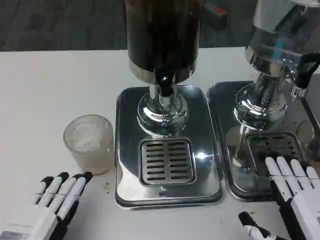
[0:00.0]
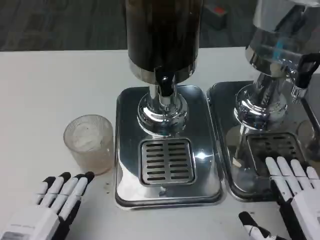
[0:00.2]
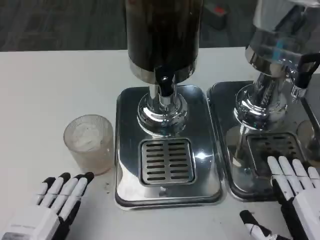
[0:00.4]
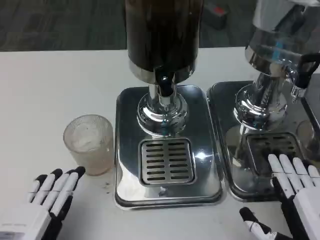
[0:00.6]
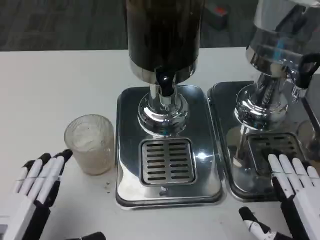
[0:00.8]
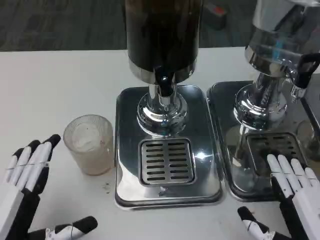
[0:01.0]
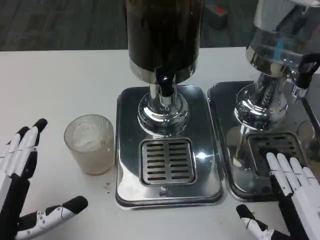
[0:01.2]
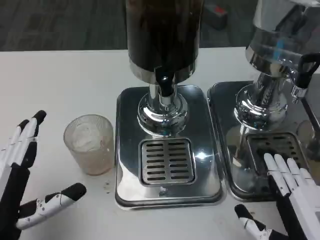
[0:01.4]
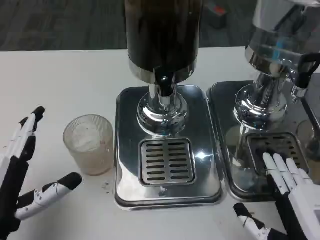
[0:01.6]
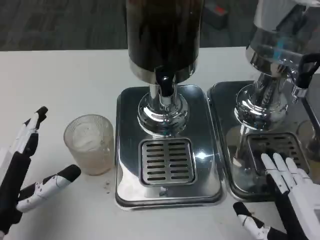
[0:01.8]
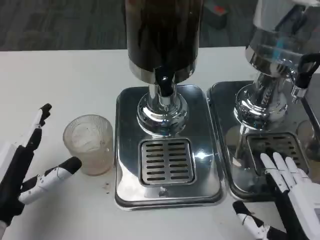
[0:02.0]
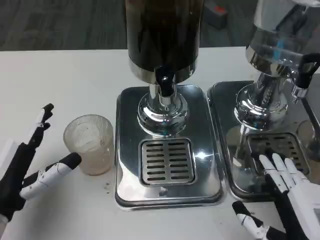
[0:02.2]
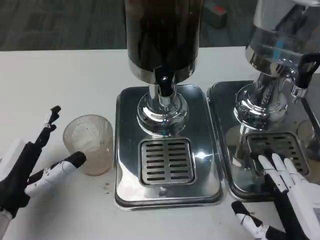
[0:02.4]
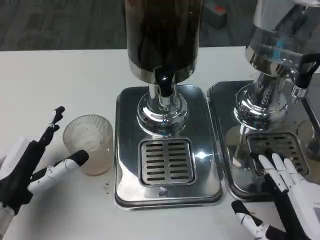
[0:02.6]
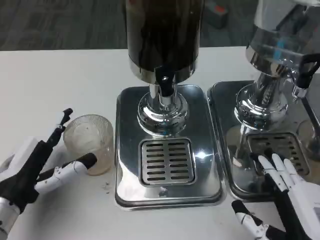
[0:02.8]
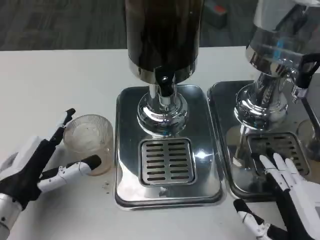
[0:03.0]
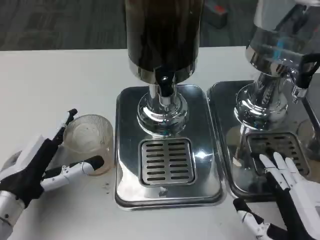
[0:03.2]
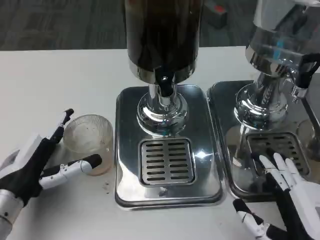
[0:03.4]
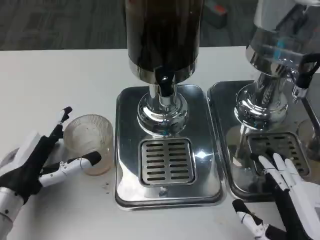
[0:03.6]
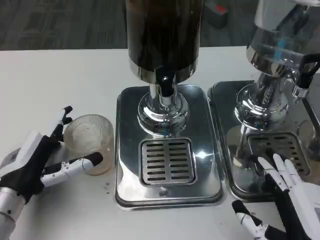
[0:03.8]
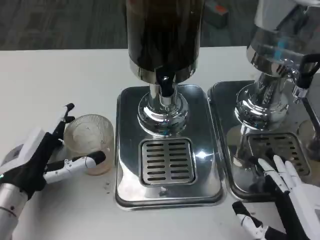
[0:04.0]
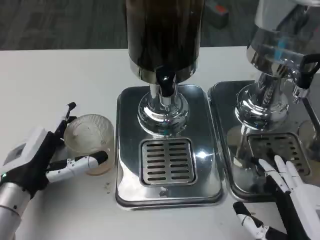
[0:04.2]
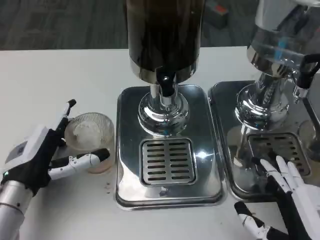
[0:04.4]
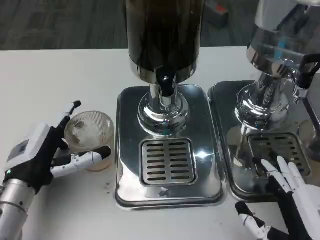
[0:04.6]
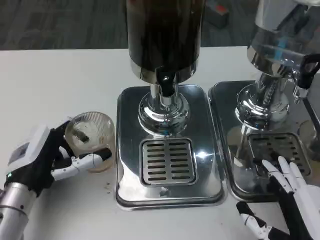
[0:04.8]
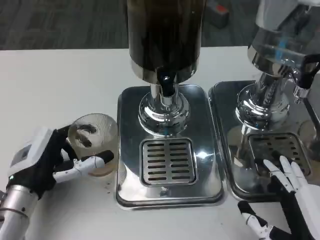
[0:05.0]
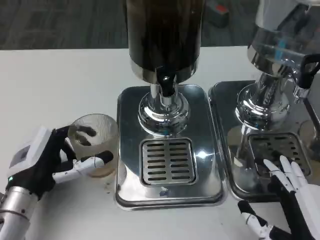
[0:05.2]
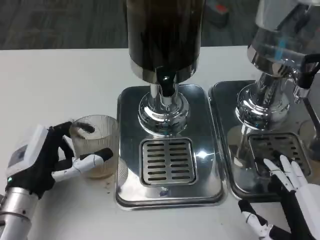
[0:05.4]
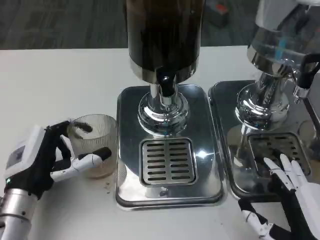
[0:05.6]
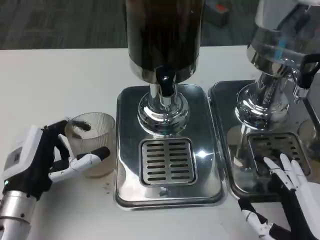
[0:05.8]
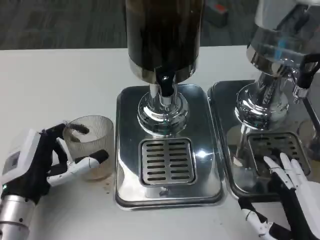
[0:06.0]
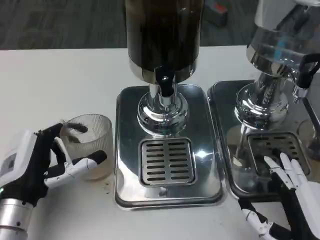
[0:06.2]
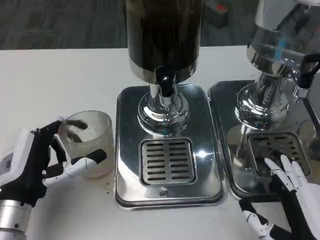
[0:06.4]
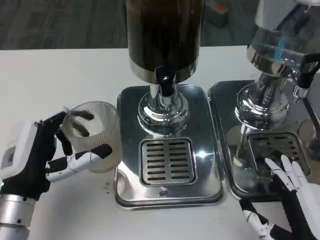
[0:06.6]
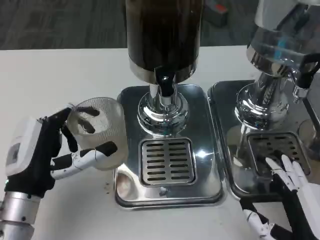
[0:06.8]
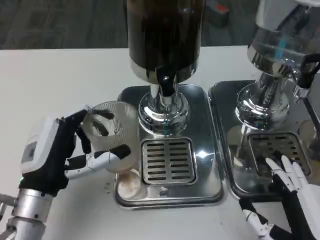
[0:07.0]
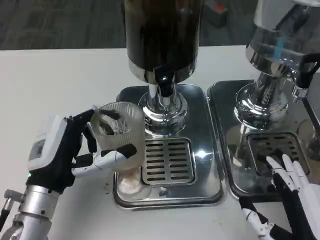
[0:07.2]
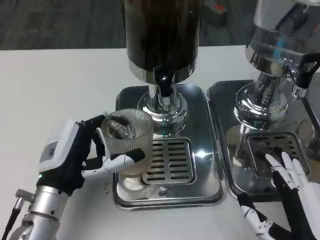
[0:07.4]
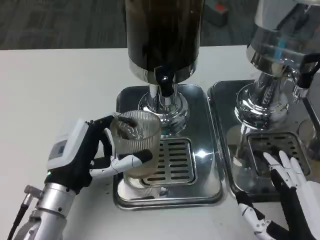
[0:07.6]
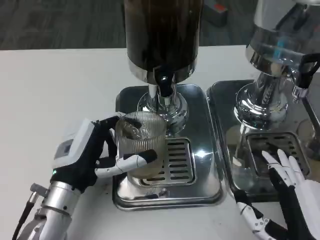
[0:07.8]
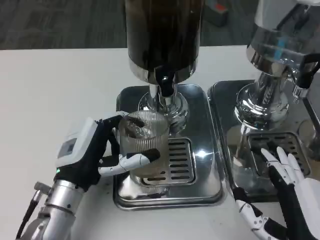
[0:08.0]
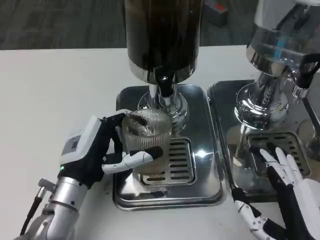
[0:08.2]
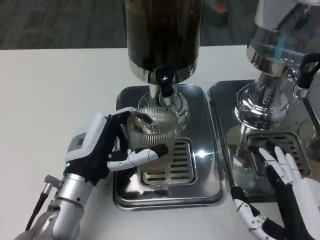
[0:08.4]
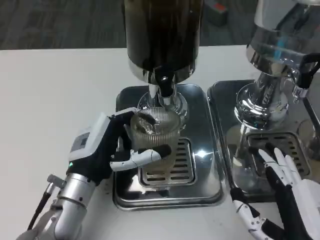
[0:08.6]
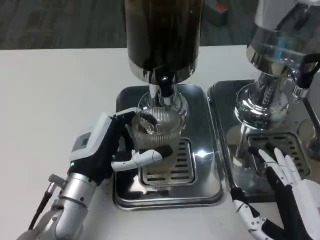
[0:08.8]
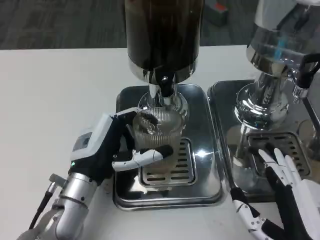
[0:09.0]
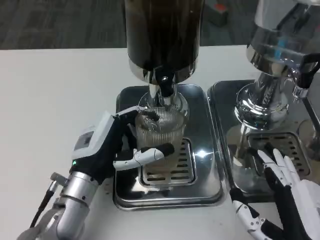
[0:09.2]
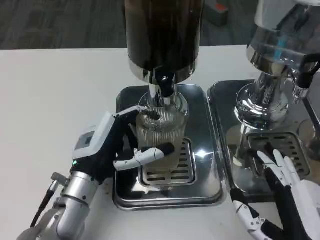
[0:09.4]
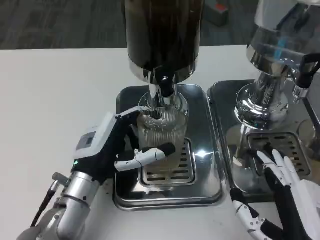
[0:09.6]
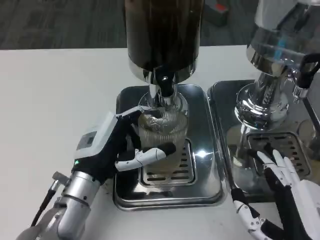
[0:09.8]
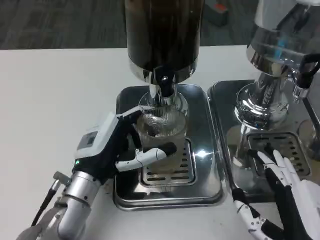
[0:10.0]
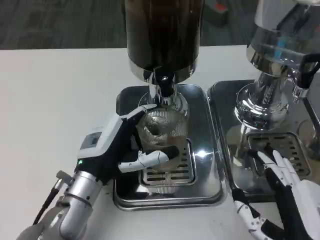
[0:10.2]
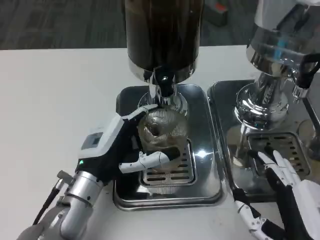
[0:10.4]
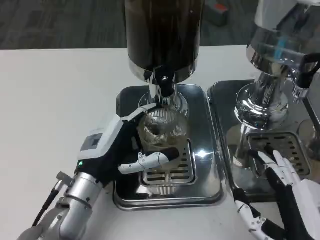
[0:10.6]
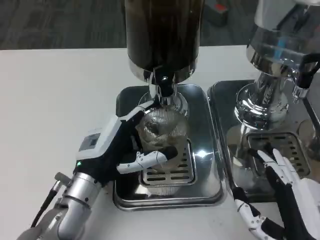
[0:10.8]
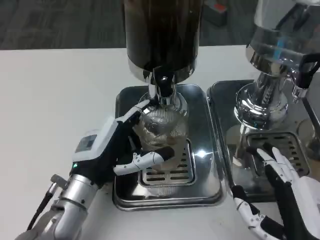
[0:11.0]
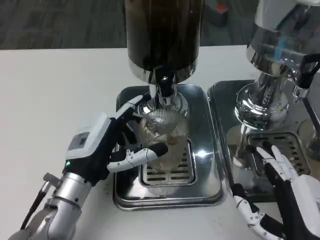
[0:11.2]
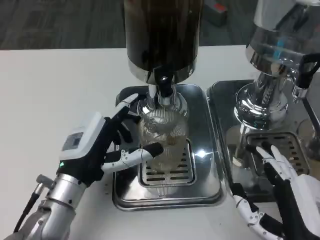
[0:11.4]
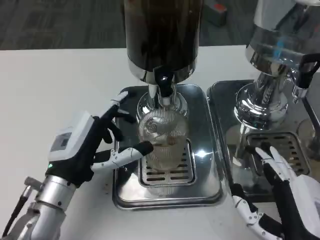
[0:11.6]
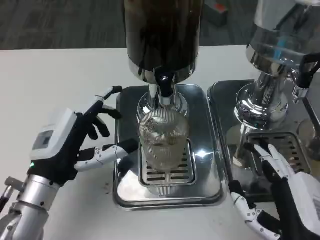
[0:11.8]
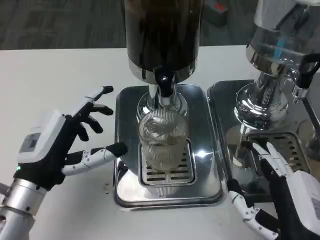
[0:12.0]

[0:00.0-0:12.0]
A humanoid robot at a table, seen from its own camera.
Task of the whole recording: Grasp the cup under the faucet to collect the drink, then remove the cup.
0:00.0 to 0:01.6: The left hand is displaced forward by about 5 cm.
0:01.6 to 0:03.0: The left hand heads forward, covering roughly 5 cm.
0:03.0 to 0:06.0: The hands stay close to where they were, moving slightly.
0:06.0 to 0:07.6: The left hand moves roughly 5 cm.
0:07.6 to 0:10.4: The hands stay close to where they were, moving slightly.
0:10.4 to 0:12.0: The left hand goes approximately 5 cm to the left.

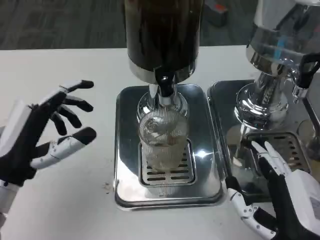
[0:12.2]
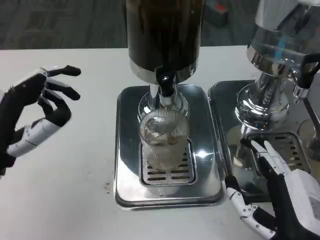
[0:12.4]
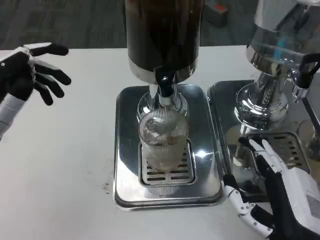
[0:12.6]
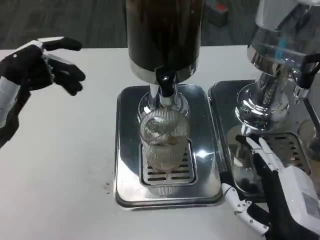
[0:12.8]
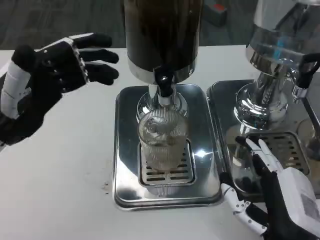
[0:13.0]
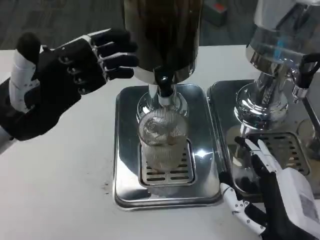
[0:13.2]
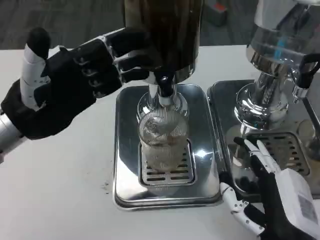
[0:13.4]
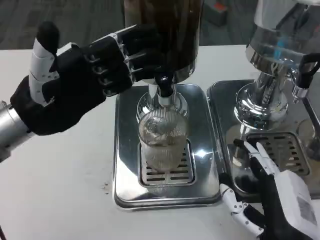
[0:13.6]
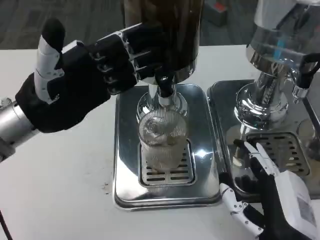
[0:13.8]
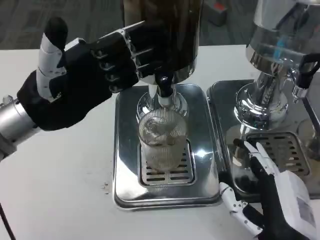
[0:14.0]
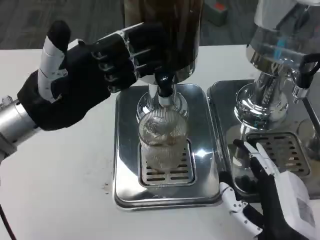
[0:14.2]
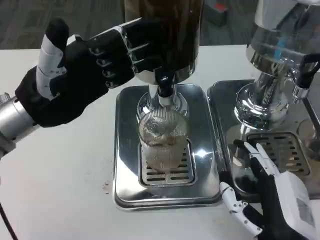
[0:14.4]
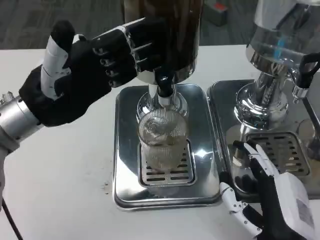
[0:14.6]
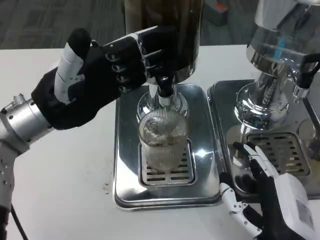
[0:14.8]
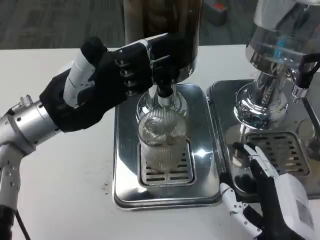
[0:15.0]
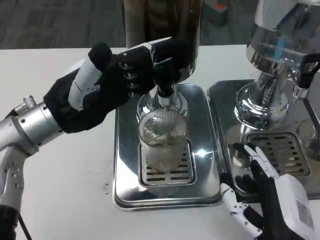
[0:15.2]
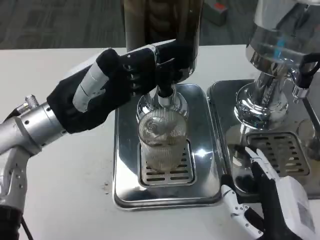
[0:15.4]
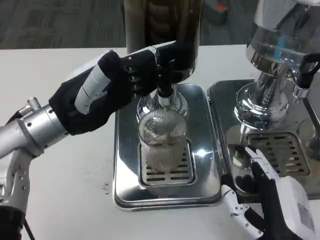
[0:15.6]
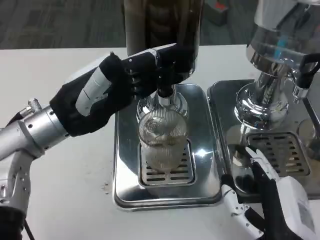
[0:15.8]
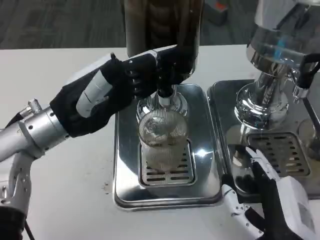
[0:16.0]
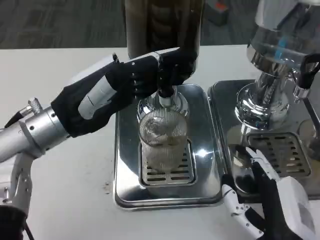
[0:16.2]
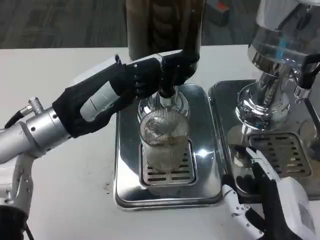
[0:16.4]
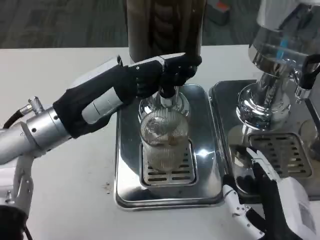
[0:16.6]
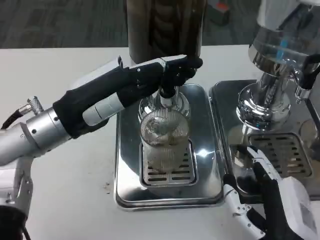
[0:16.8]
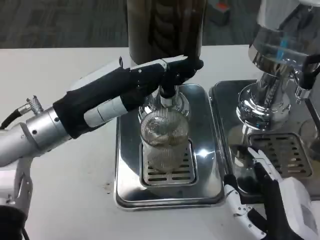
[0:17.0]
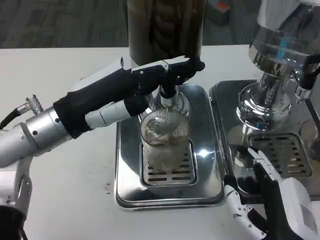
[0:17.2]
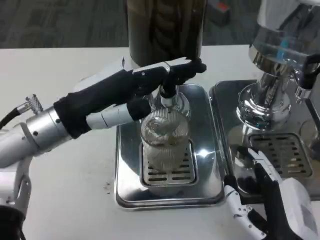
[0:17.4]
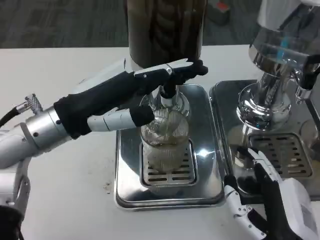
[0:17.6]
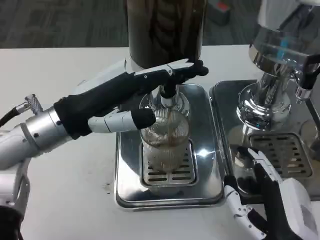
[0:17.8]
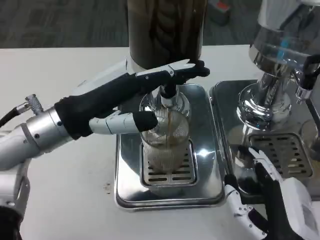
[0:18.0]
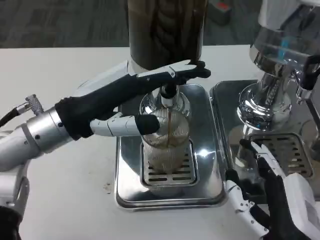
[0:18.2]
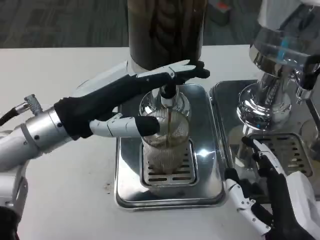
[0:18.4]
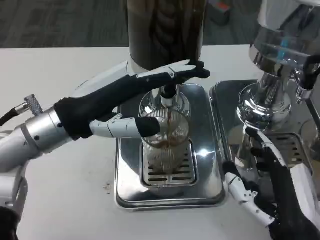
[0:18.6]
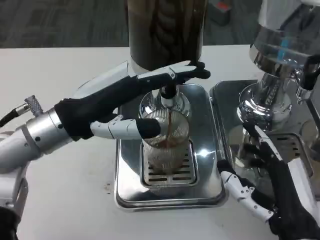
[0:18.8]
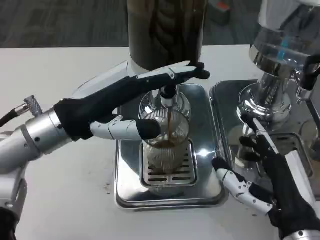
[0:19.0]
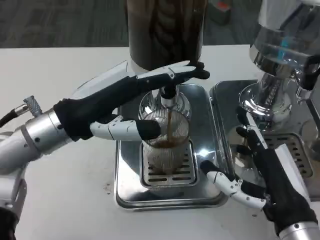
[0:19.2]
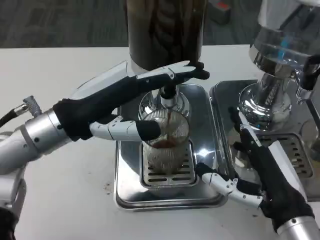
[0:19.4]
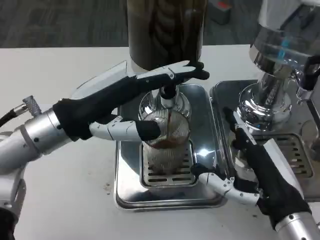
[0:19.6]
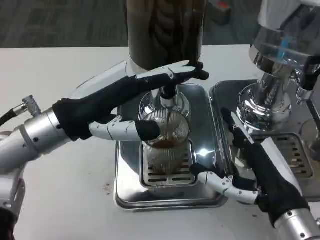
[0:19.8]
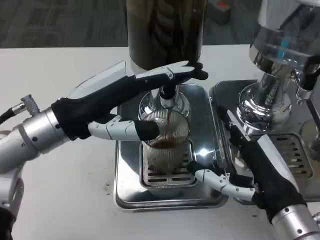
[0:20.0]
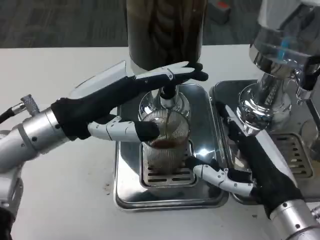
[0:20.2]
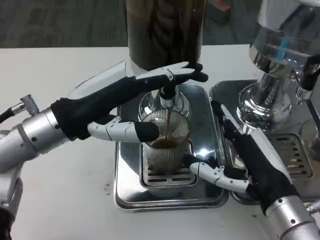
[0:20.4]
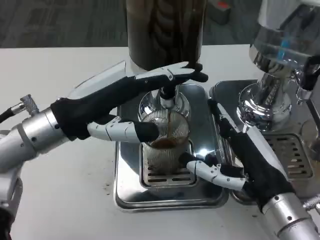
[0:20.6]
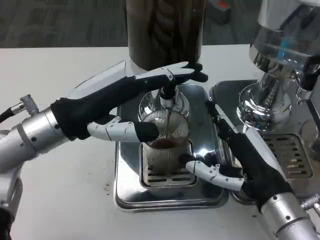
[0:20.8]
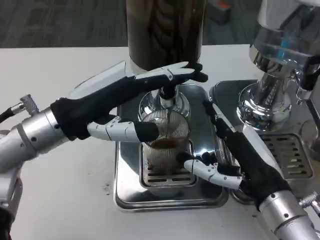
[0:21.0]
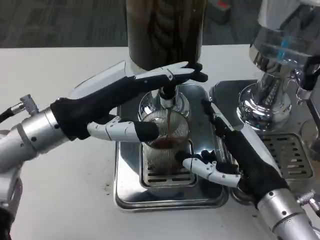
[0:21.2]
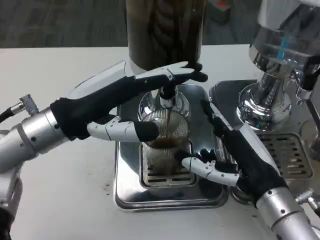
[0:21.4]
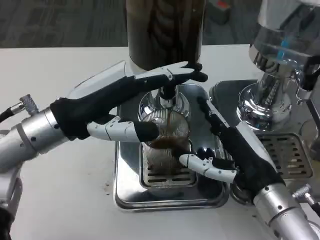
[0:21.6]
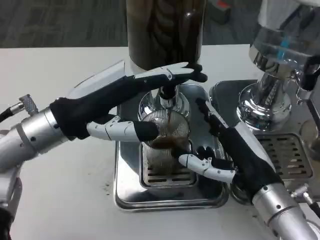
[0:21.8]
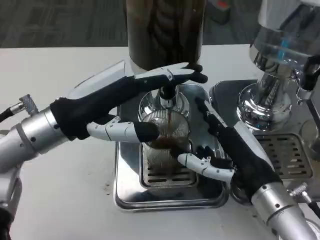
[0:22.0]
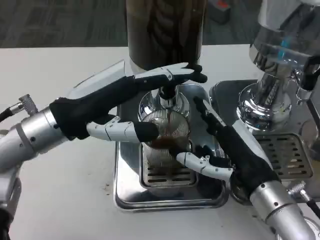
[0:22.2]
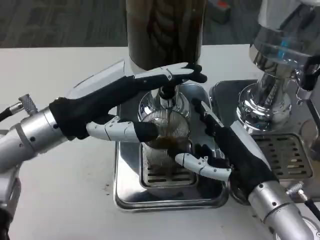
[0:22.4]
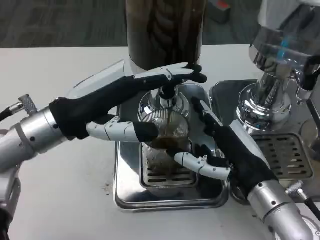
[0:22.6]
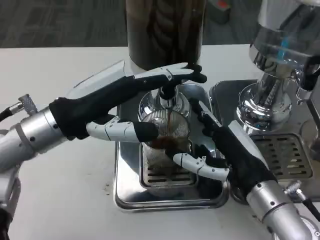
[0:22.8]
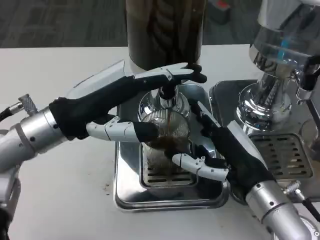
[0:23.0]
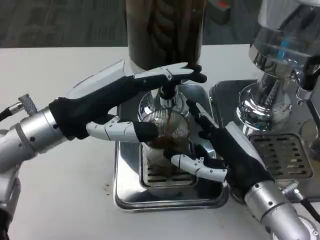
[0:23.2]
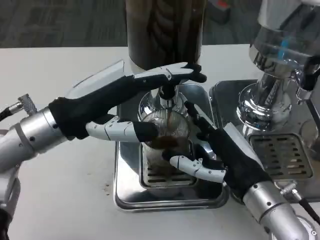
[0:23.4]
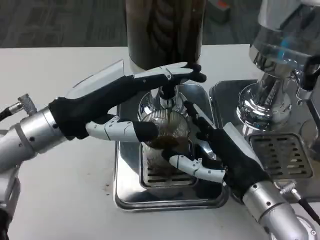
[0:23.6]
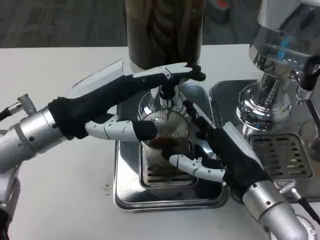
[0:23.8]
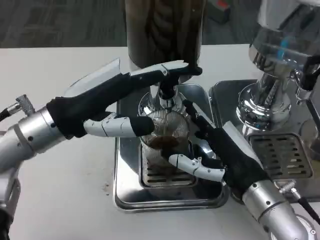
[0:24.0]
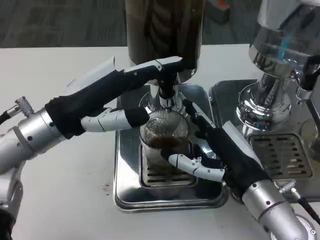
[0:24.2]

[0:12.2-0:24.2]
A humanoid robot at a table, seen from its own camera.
Task of the whole recording: Grasp the cup under the faucet to collect the drink, then remove the cup.
0:12.2 to 0:13.8: The left hand is displaced upward and forward by approximately 10 cm.
0:13.8 to 0:15.2: The hands move only a little.
0:16.6 to 0:18.2: The hands make only small movements.
0:18.2 to 0:19.8: The right hand is displaced forward by approximately 5 cm.
0:19.8 to 0:24.2: There are only small adjustments of the hands.
